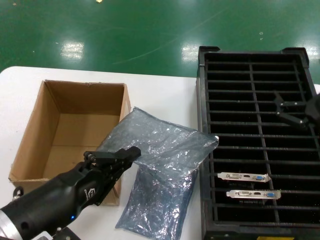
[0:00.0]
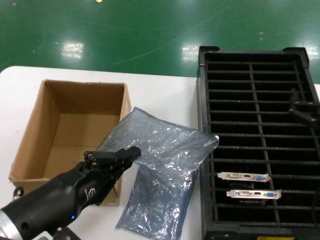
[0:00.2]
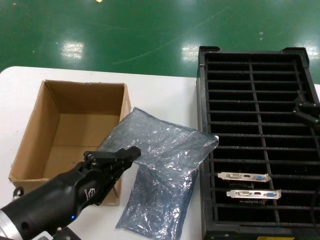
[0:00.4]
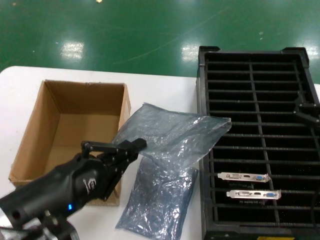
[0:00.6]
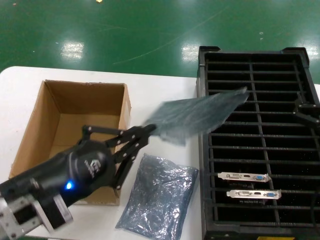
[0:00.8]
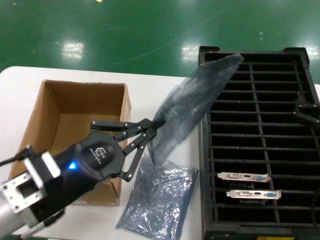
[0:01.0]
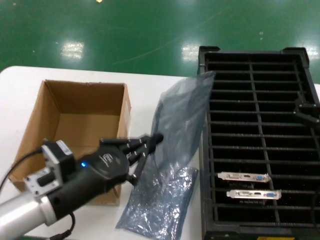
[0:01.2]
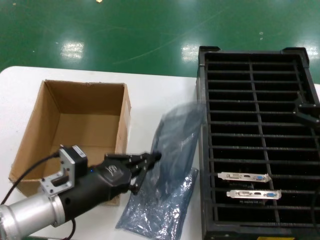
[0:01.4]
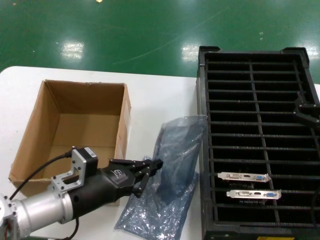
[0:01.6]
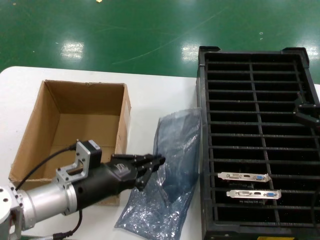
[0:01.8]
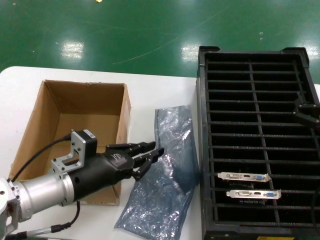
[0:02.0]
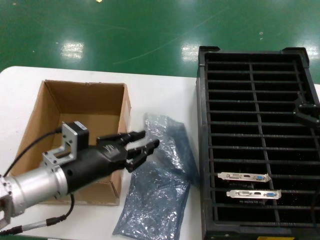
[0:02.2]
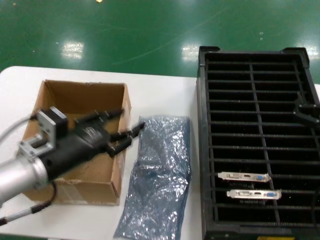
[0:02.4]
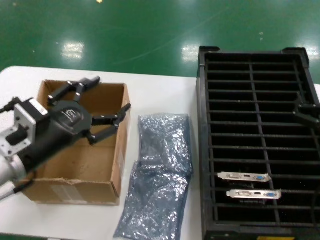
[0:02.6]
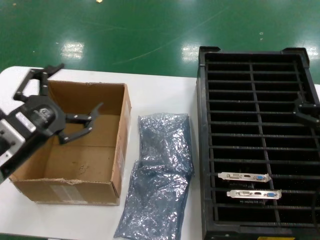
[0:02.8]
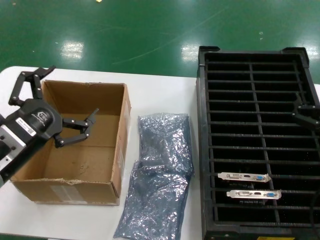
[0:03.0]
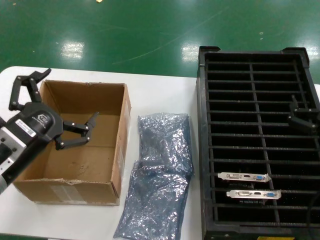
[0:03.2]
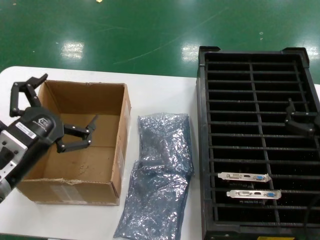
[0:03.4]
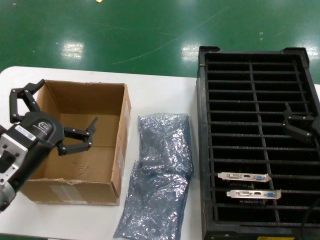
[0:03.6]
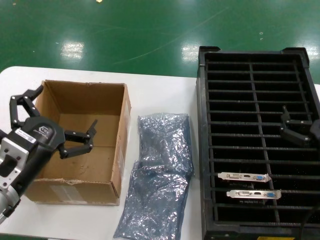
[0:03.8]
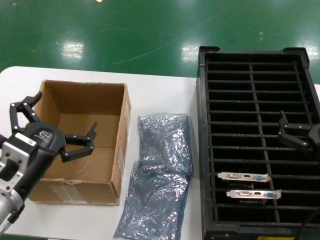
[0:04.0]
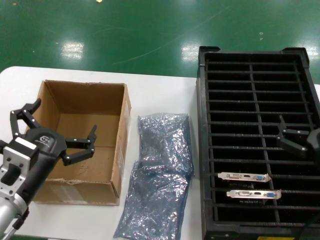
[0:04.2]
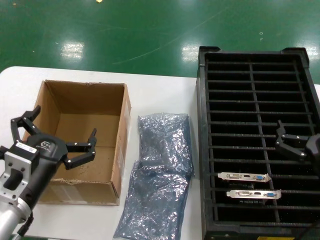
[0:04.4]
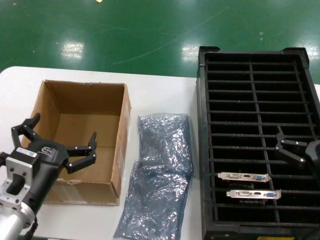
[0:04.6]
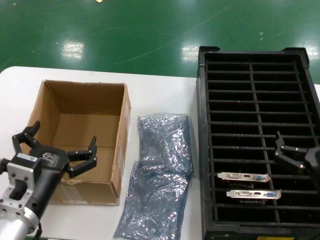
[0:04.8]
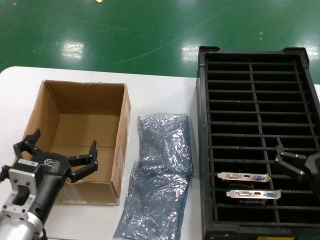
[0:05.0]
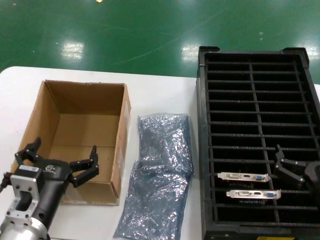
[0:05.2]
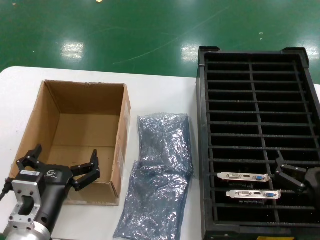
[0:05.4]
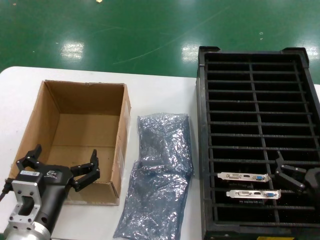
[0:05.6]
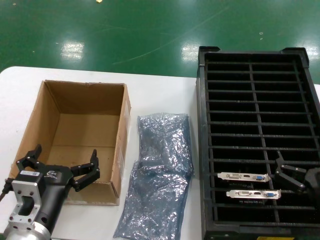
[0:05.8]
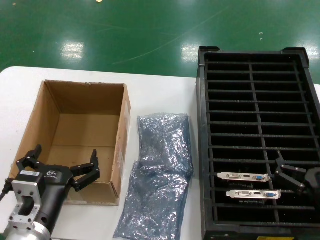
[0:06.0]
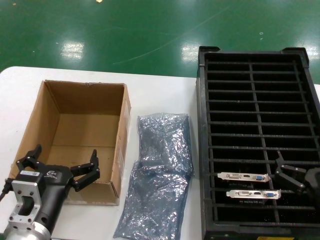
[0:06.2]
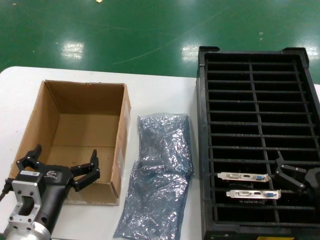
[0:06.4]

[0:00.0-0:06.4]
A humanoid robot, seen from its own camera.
Task of the whole recording: take out graphics card from box remove packaging put into black container.
Step, 0:00.0 to 0:03.0: Place the down the bag.
0:00.0 to 0:01.6: The left hand is displaced forward and downward by roughly 15 cm.
0:01.6 to 0:03.2: The left hand shifts roughly 10 cm upward and backward.
0:03.2 to 0:04.8: The two hands go approximately 10 cm downward.
0:04.8 to 0:06.4: The hands move only a little.
